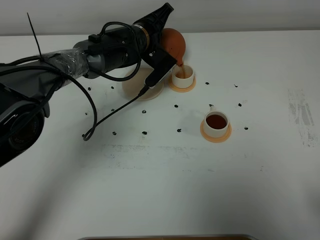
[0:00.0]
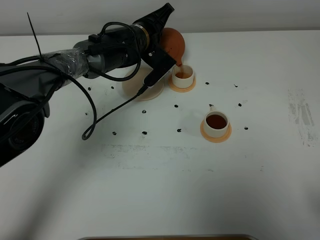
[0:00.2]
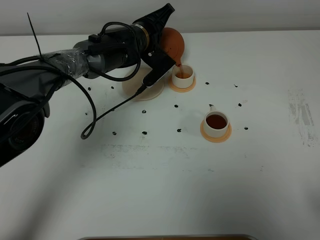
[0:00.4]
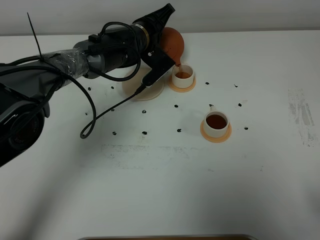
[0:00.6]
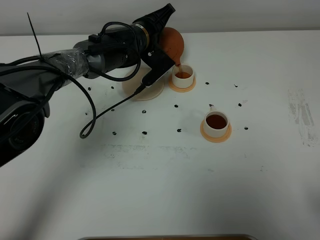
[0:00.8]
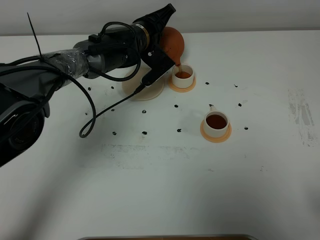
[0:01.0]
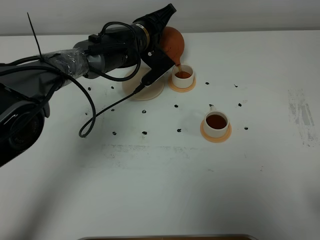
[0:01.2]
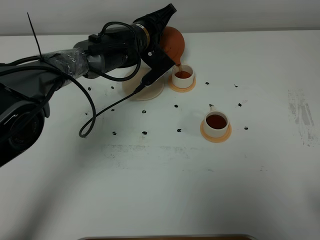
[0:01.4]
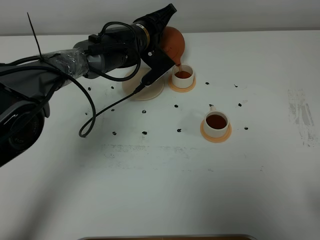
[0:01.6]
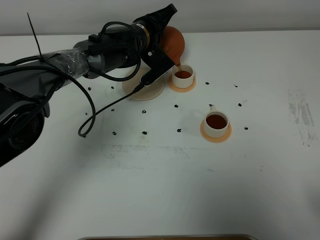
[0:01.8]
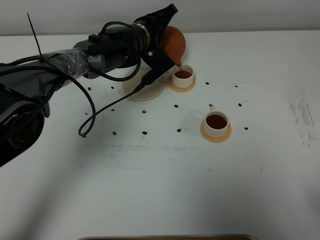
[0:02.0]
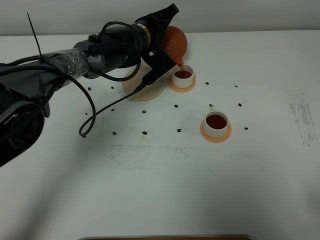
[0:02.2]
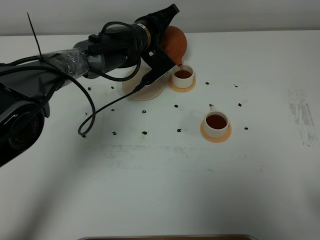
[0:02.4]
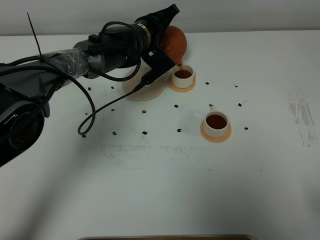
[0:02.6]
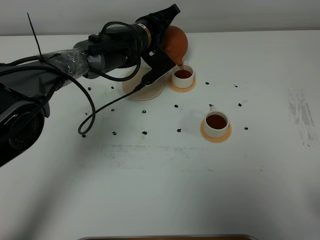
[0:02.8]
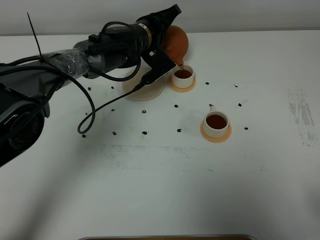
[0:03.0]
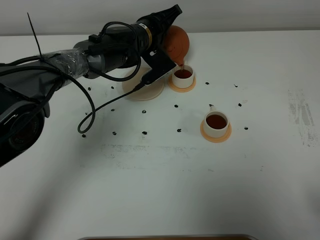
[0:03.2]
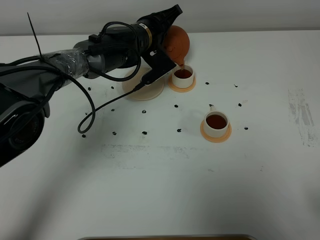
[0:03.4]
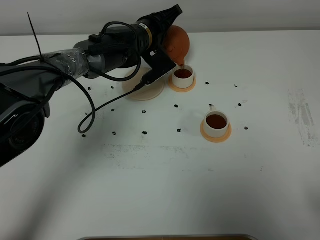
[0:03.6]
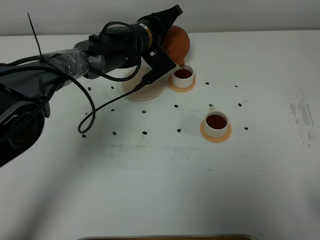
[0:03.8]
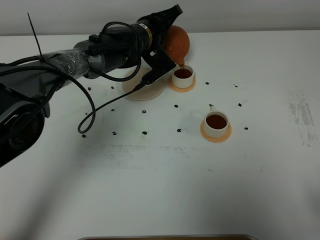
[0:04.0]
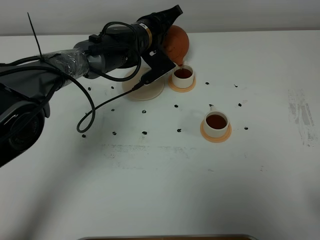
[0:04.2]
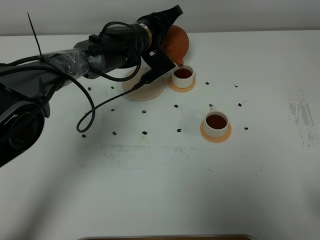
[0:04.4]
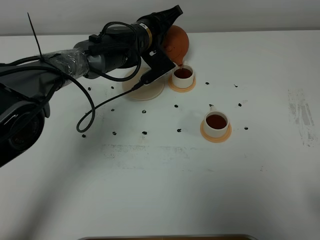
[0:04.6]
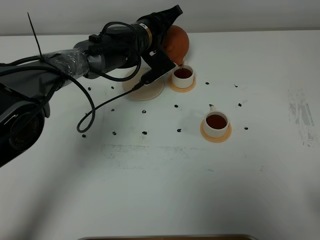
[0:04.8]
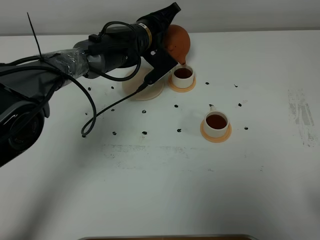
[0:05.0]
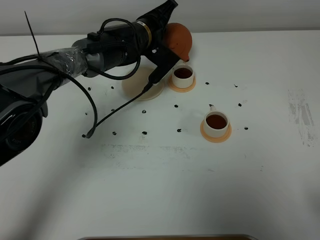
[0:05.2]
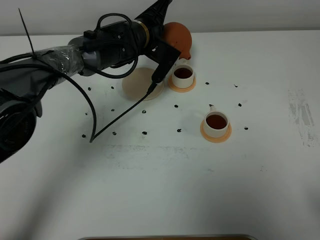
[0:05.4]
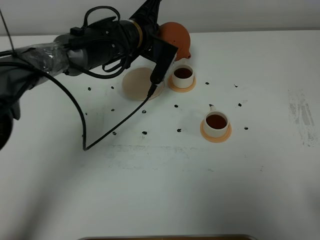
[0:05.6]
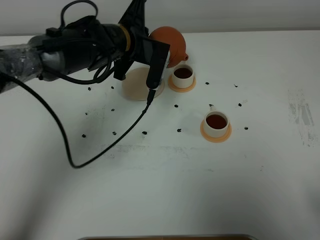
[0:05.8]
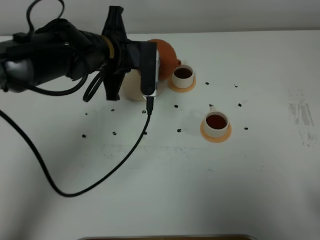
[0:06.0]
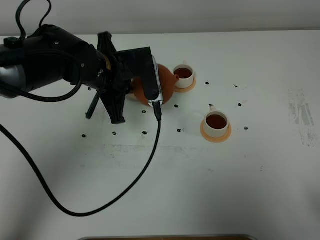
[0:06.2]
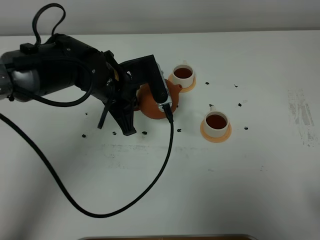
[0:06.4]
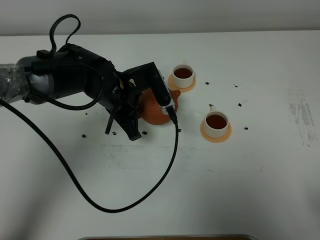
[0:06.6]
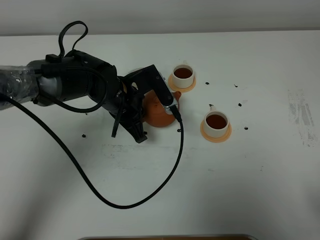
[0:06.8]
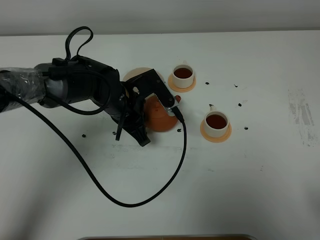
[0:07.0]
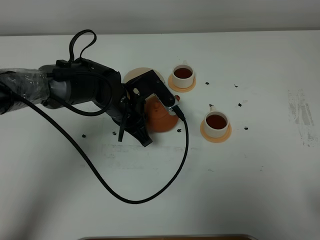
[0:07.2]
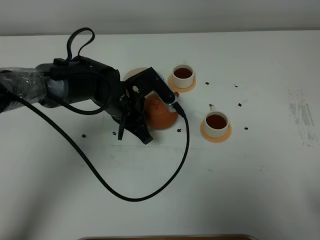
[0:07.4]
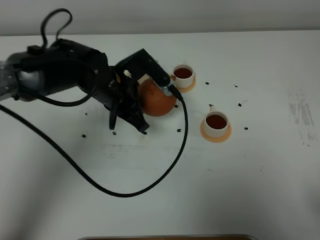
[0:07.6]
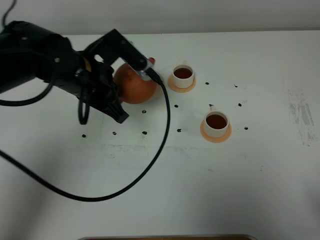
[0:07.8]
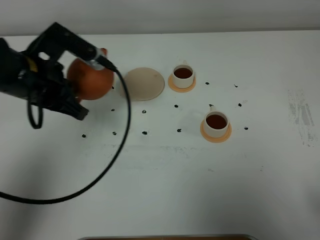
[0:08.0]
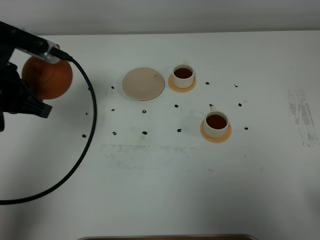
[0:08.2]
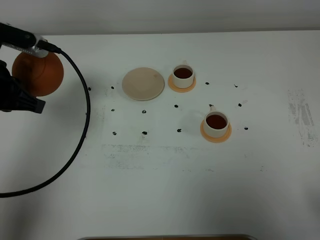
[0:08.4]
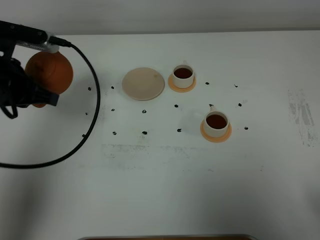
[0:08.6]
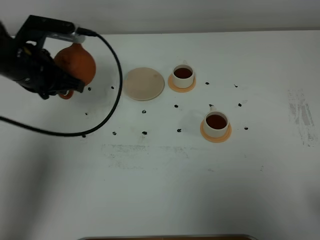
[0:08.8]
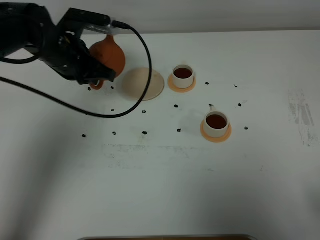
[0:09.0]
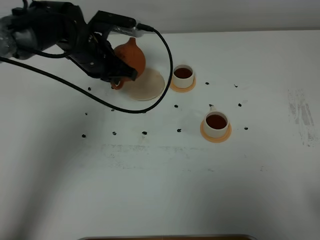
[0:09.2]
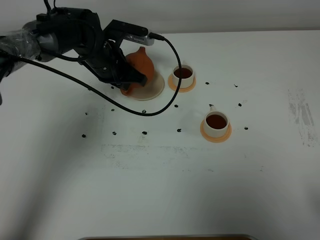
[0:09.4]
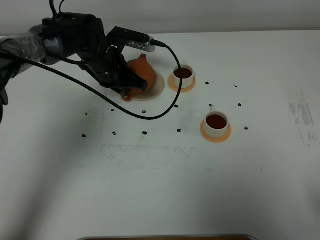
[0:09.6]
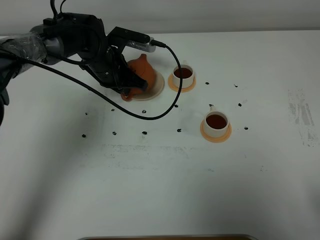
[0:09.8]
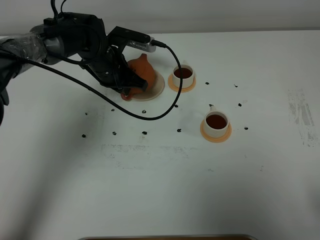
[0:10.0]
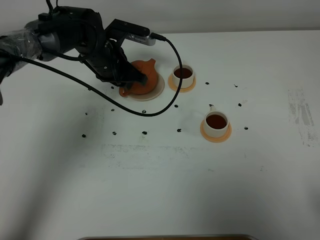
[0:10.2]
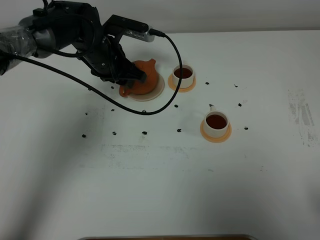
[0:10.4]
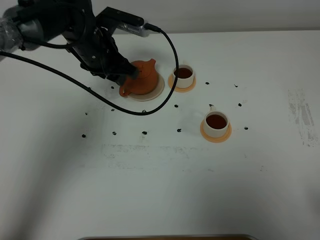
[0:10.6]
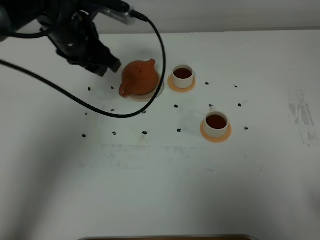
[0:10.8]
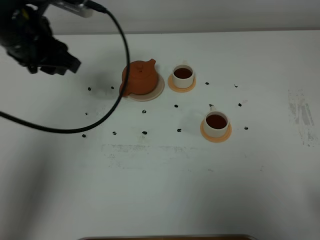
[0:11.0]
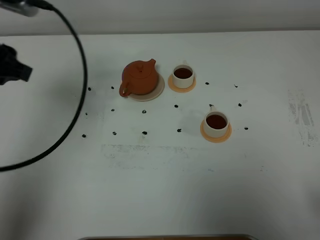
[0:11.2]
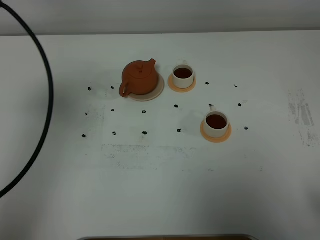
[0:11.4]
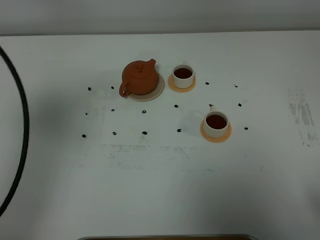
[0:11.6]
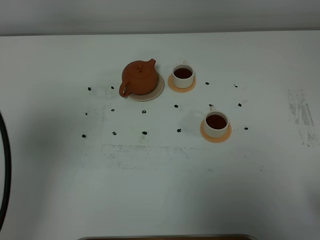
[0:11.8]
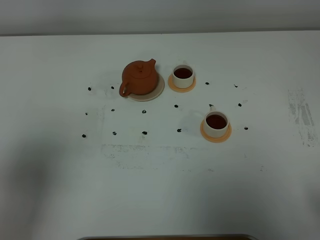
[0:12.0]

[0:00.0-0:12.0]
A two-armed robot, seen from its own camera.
Task of the whole recording: grasp the brown teapot and pour the tea into the two white teacups one by one, put the brown teapot back in its original place.
Step, 0.0 to 5.6 s: Pour tea into the teacup with the left gripper.
0.0 to 3.0 s: There are only small adjustments of the grippers.
3.0 to 4.4 s: The two grippers keep their place.
4.4 to 6.0 s: The left gripper goes approximately 15 cm backward, to the left and upward.
6.0 to 7.6 s: The left gripper travels downward and back again, about 10 cm each way.
7.6 to 9.0 s: The left gripper travels forward and to the left by roughly 10 cm.
9.0 to 10.4 s: The left gripper shifts by some 5 cm, and opens up.
10.4 to 12.0 s: The left gripper is displaced backward, upward and to the left by about 40 cm.

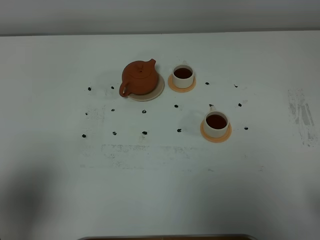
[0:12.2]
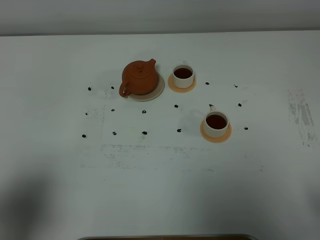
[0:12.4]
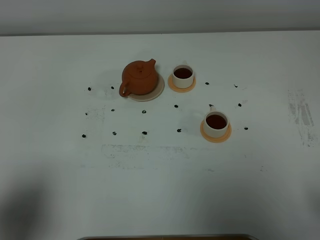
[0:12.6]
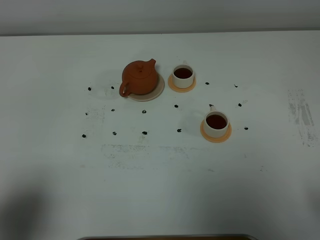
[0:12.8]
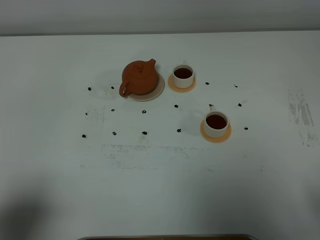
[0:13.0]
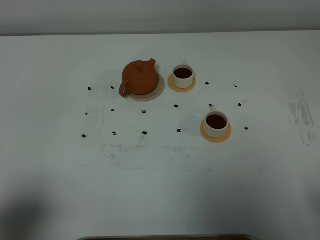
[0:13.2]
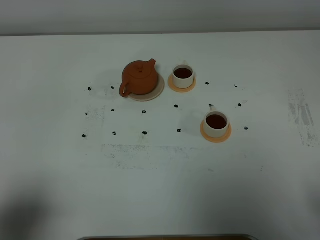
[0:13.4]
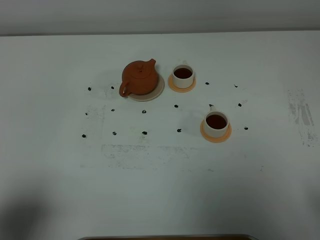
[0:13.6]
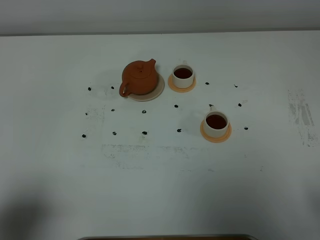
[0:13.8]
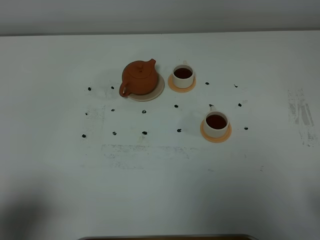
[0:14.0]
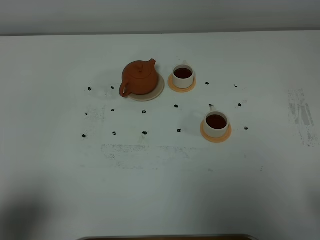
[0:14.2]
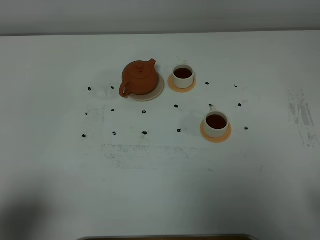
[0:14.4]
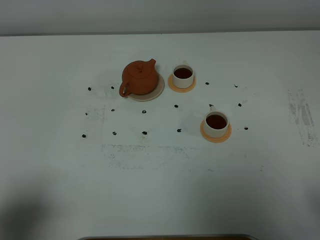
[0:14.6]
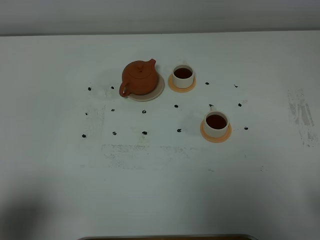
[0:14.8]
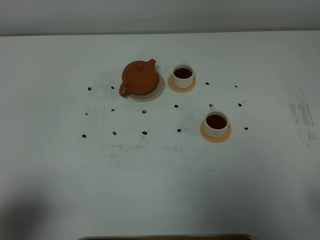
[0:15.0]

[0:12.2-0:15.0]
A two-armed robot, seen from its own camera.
Task of the whole recording: grasp the brown teapot and pour the tea into the two white teacups one by one, put the brown teapot back in its original place.
12.2 to 13.6 s: The left gripper heads downward, covering roughly 5 cm.
13.6 to 15.0 s: The two grippers keep their place.

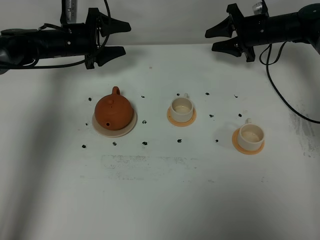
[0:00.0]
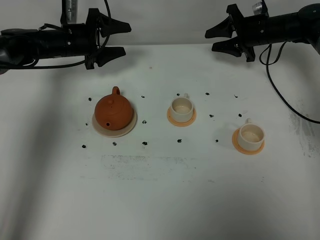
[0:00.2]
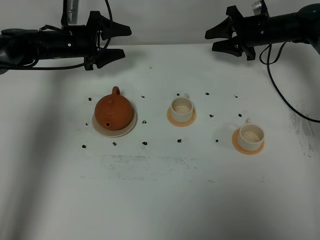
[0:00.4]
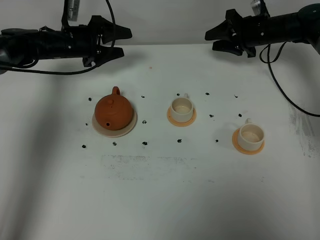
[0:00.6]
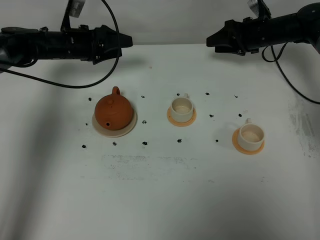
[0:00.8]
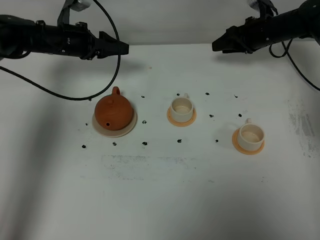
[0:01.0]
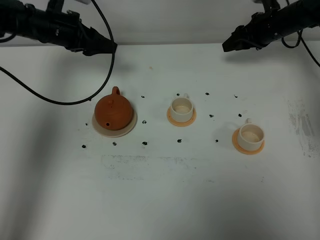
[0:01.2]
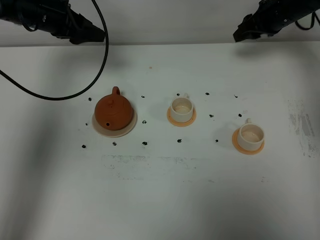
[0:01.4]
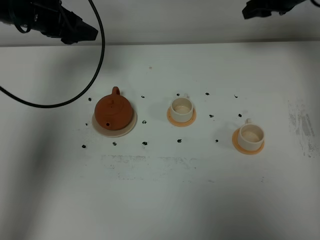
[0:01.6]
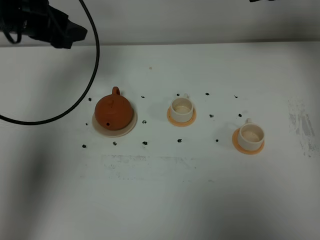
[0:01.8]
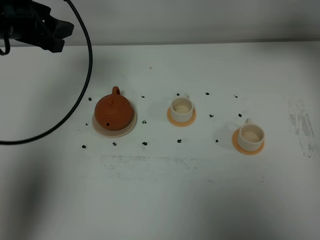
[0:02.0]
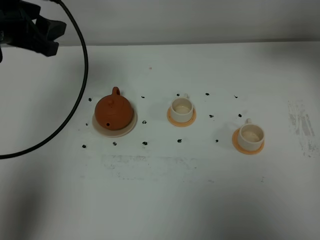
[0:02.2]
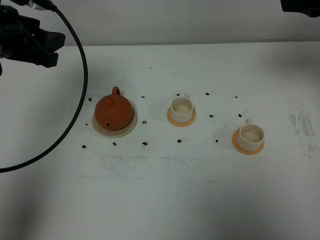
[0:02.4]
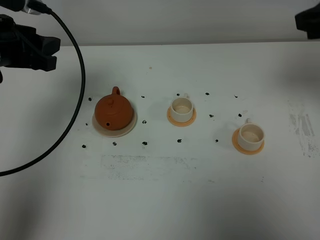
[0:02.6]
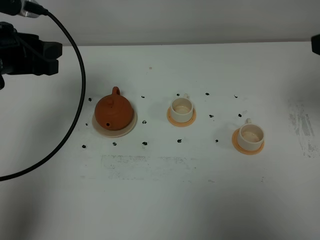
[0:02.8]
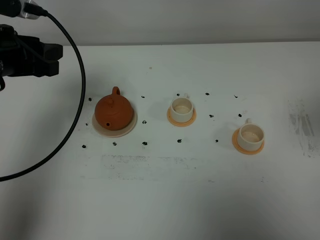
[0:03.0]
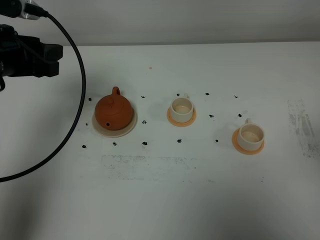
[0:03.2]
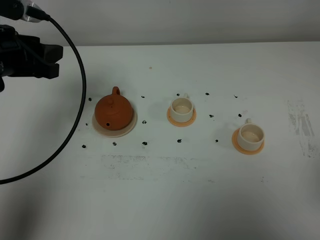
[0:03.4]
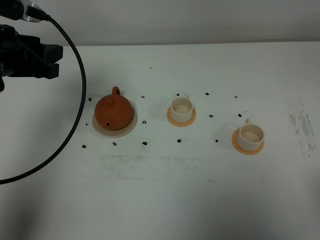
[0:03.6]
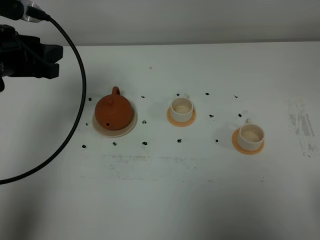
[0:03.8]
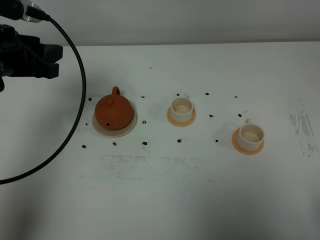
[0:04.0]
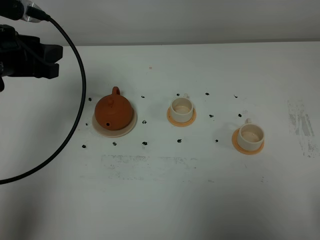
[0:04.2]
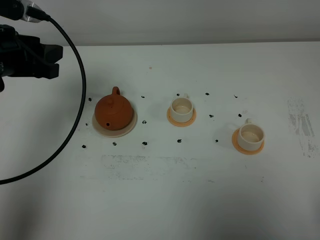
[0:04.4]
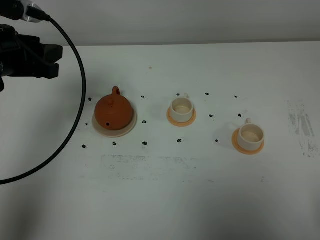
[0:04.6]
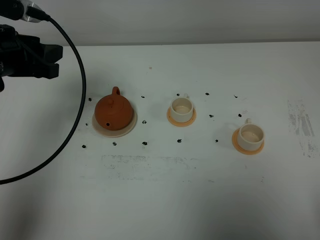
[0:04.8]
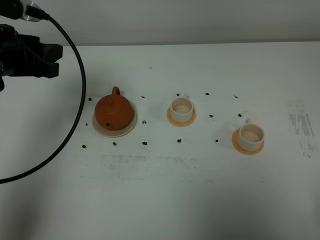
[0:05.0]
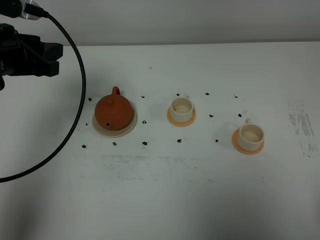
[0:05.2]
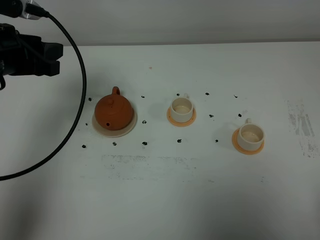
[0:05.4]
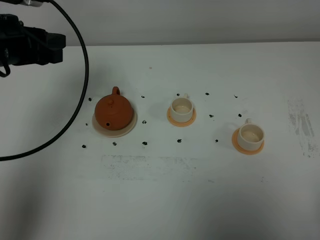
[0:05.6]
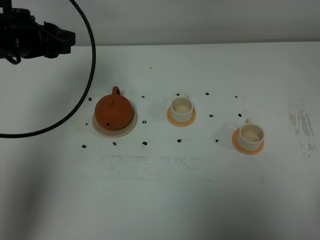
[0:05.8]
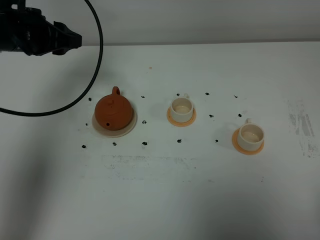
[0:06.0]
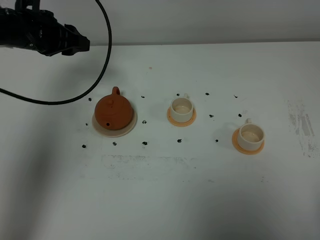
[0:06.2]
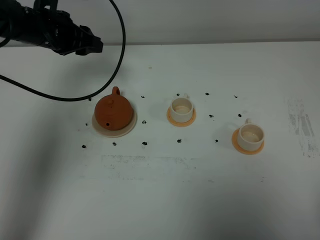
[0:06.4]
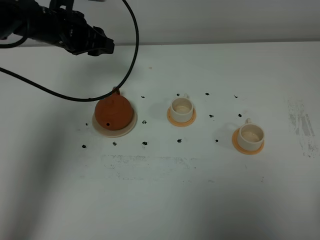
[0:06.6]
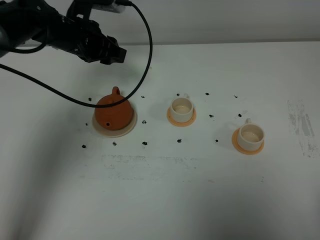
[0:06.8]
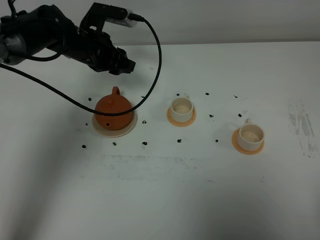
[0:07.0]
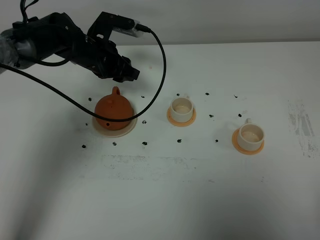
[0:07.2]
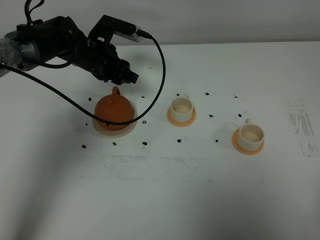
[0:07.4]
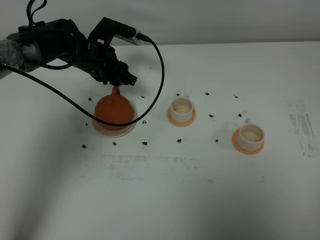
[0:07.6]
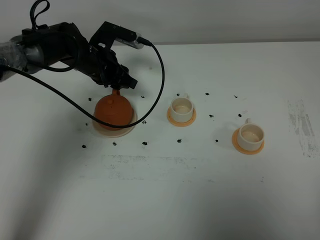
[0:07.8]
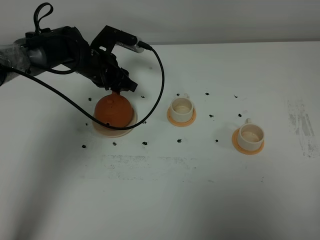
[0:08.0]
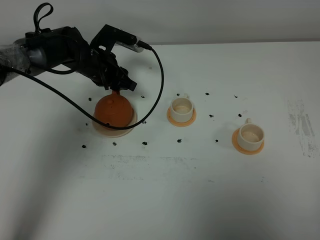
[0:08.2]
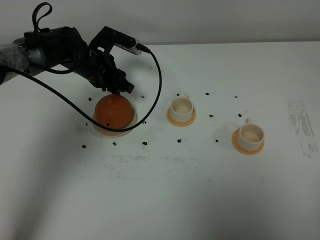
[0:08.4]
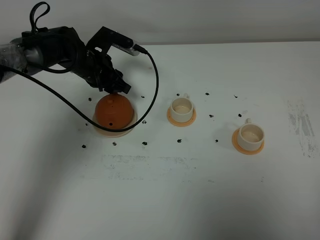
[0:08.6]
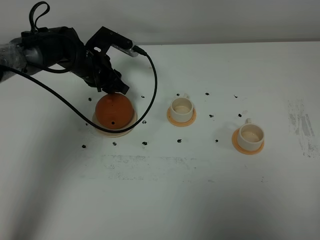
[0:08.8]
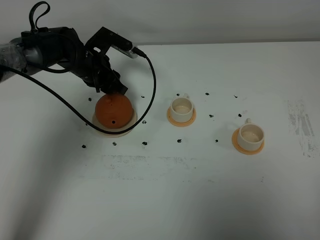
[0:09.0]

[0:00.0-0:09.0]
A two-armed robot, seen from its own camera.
Task of the whole recording: grasp the brown teapot and pour the tea into the two white teacups one by one, put the brown teapot back in its original place.
0.0 to 1.6 s: The right gripper moves upward, about 15 cm; the left gripper heads upward and backward, covering roughly 15 cm.
1.6 to 3.0 s: The left gripper heads backward, covering about 15 cm. The right gripper heads backward, covering roughly 35 cm.
3.0 to 4.4 s: The right gripper heads backward and downward, covering approximately 20 cm.
4.4 to 6.0 s: The left gripper is displaced forward by some 10 cm.
6.0 to 7.6 s: The left gripper moves downward, to the right and forward, about 15 cm, while the right gripper closes its fingers.
7.6 to 9.0 s: The right gripper closes up.
